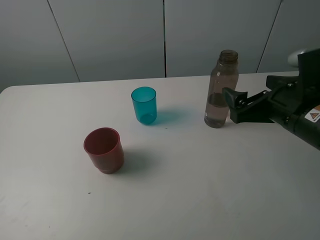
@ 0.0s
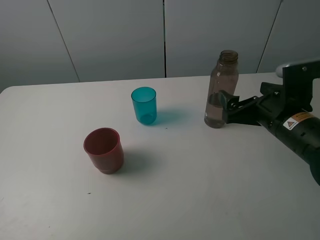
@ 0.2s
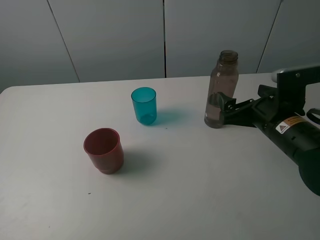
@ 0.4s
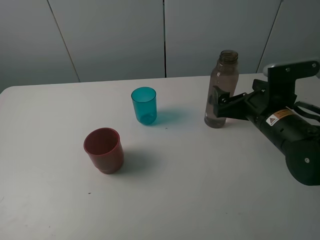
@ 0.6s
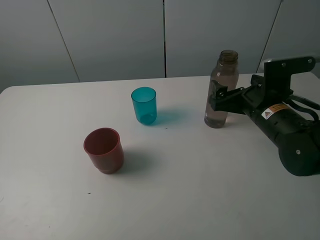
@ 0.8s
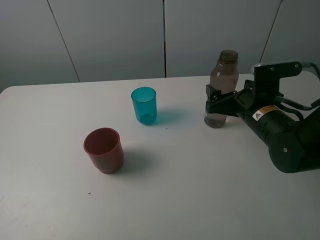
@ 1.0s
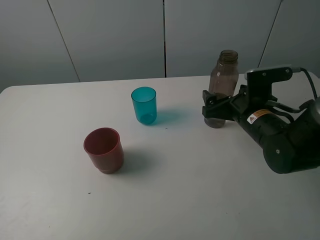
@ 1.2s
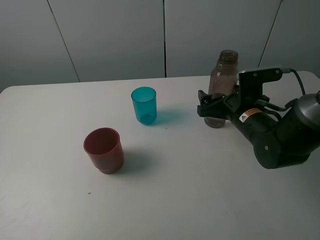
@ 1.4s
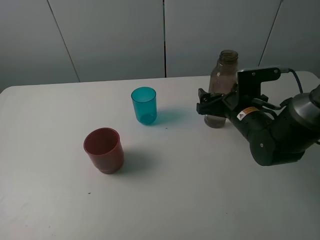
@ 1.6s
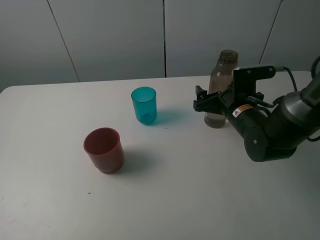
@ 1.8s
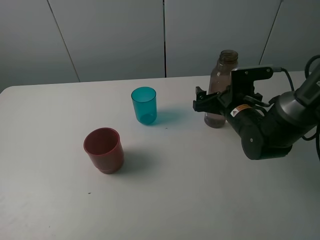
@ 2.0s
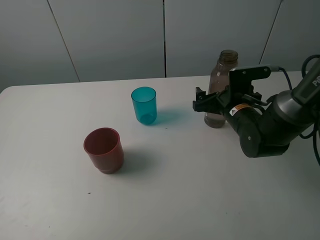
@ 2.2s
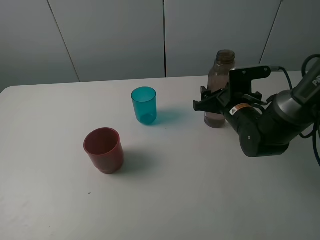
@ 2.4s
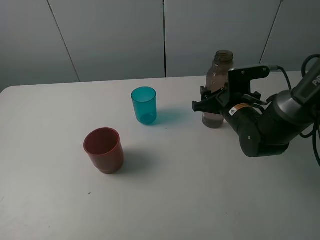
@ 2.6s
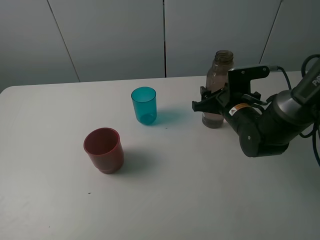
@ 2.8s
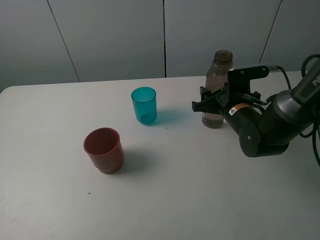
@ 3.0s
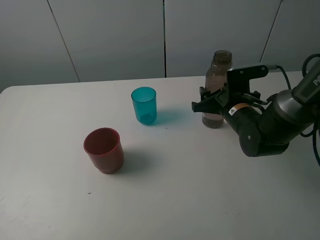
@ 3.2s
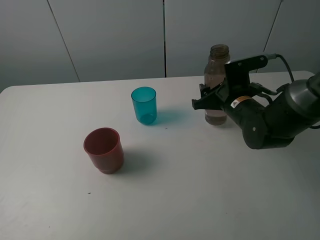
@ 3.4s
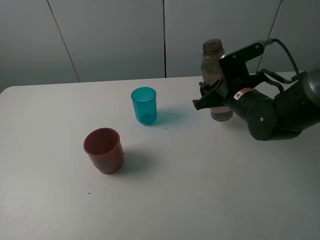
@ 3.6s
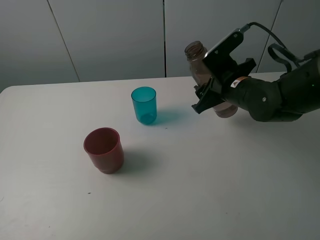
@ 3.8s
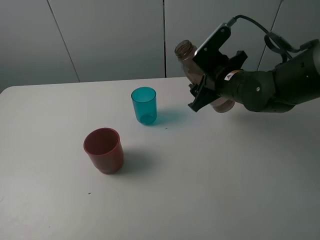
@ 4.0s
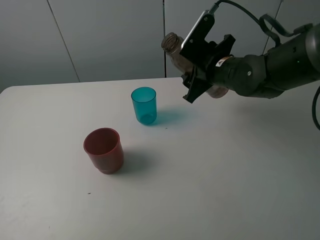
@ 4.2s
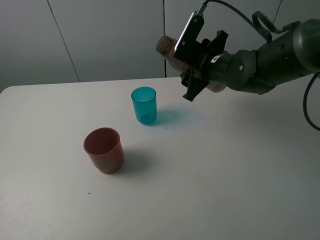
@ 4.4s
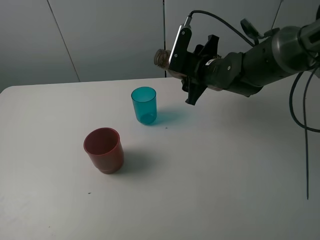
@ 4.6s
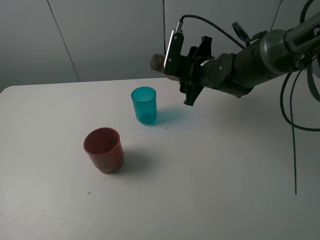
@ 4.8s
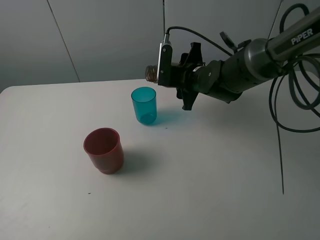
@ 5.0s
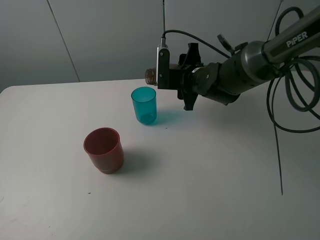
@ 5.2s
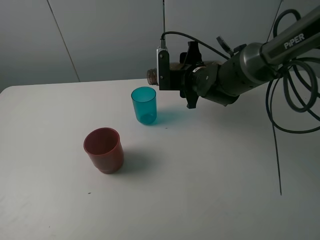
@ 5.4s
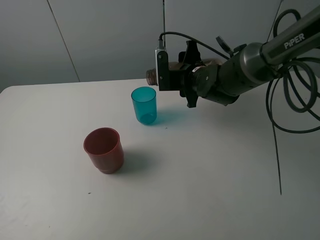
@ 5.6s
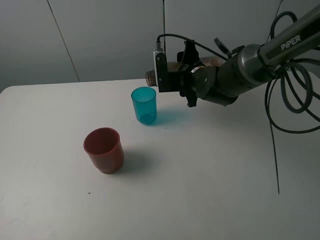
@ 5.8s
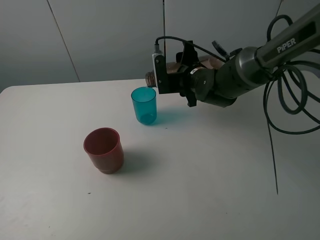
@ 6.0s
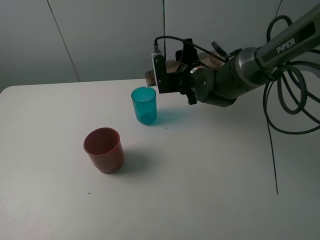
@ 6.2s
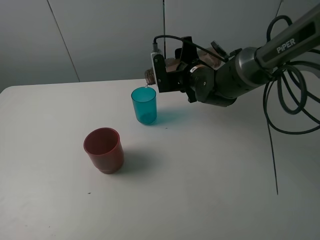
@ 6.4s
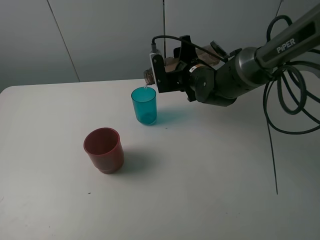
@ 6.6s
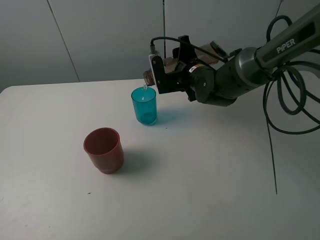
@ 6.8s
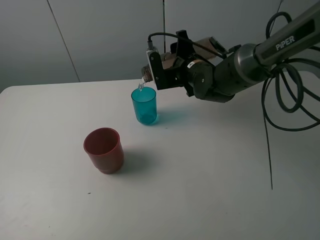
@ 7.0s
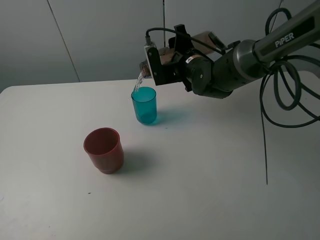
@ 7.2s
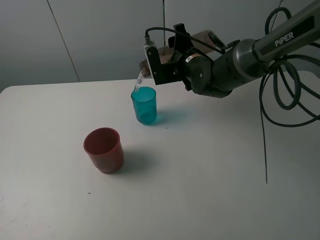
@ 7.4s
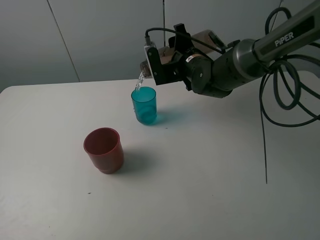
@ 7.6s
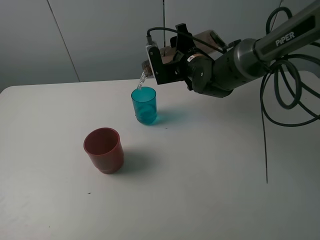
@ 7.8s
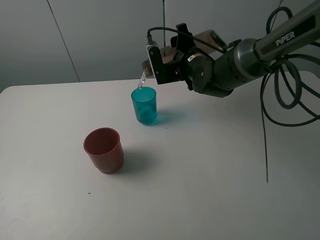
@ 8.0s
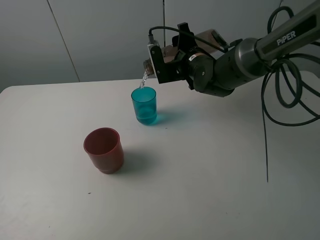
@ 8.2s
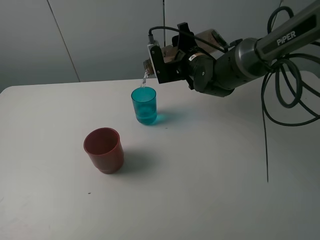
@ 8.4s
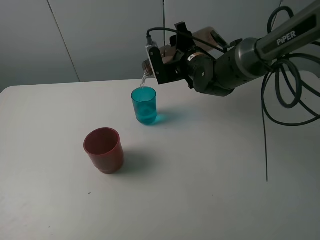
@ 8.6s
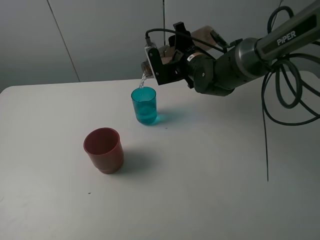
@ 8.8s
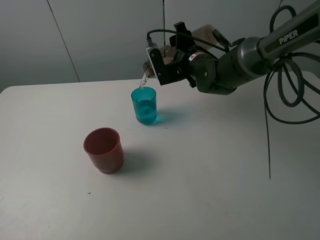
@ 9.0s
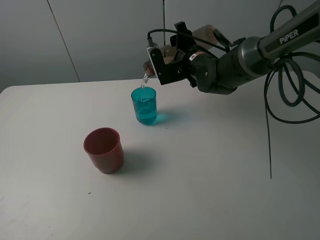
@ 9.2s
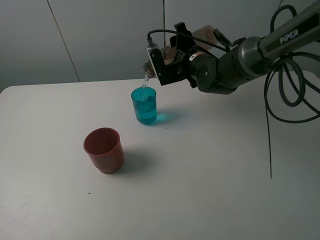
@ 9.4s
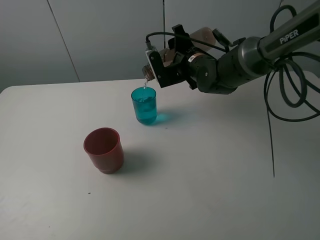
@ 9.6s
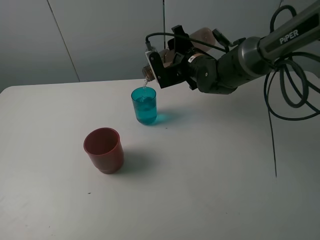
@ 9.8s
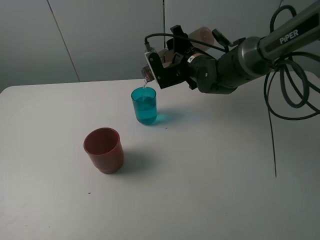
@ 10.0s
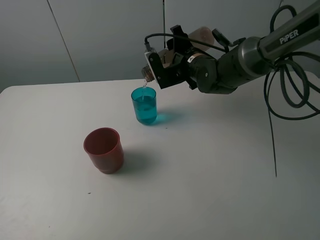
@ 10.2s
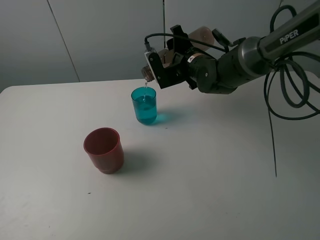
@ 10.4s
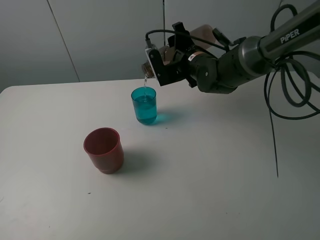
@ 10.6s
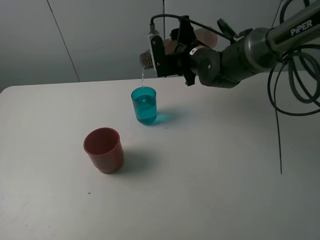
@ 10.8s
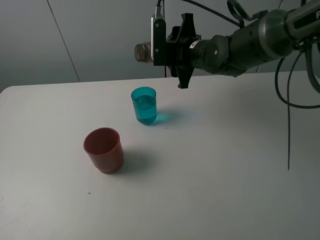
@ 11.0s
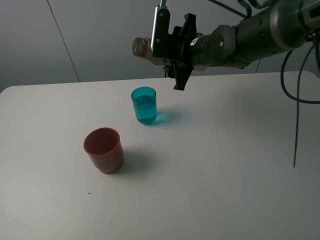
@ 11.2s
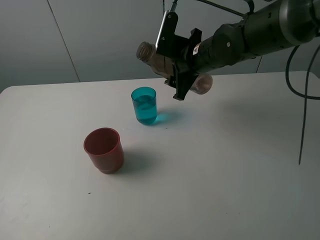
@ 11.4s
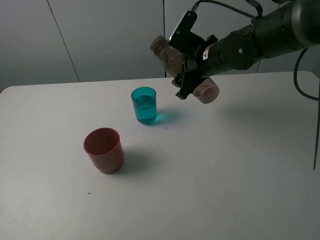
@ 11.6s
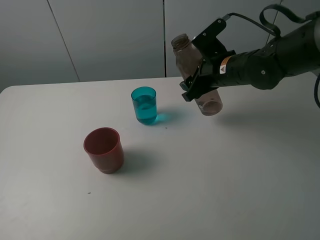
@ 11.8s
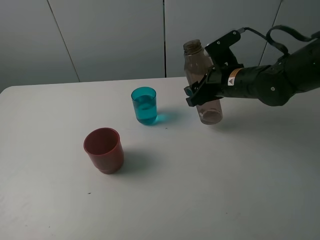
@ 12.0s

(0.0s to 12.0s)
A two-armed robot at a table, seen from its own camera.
Task of the whole recording: pick up the bottle and pour water into the cup, then pick up the cup containing water and pour it into another cup.
Step, 0.0s - 2.8s: Grasp the brown bottle with the right gripper.
Step, 3.0s - 10.8s: Pour water from brown bottle to blue cup with the right gripper.
0.0s - 1.6s: The right gripper moves forward and downward, about 10 cm.
1.6s - 3.0s: The right gripper closes its fingers.
3.0s - 4.4s: The right gripper shifts some 10 cm upward.
4.4s - 6.0s: The right gripper moves some 5 cm.
6.0s - 7.6s: There are only small adjustments of the grippers.
7.6s - 9.0s: The two grippers keep their place.
9.0s - 10.4s: Both grippers stay about where they are.
10.4s - 12.0s: The right gripper heads to the right and backward, covering about 10 cm.

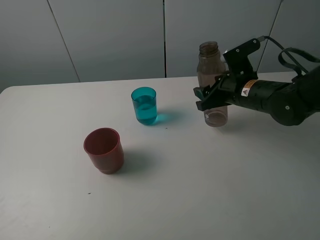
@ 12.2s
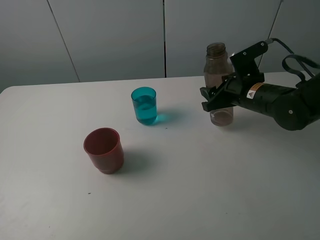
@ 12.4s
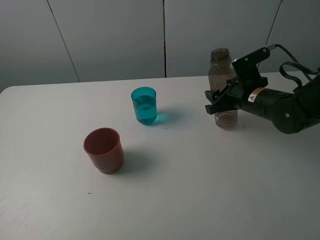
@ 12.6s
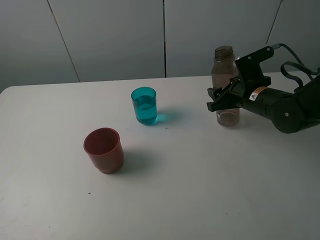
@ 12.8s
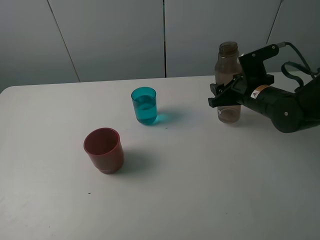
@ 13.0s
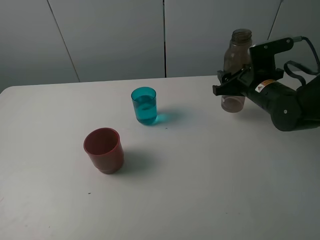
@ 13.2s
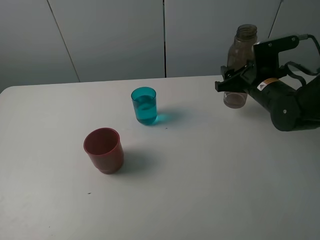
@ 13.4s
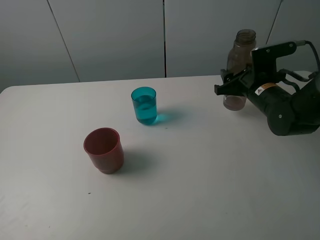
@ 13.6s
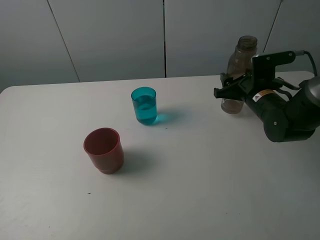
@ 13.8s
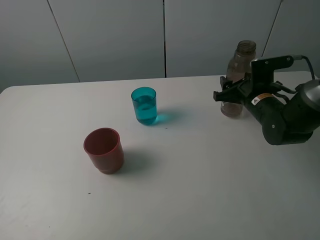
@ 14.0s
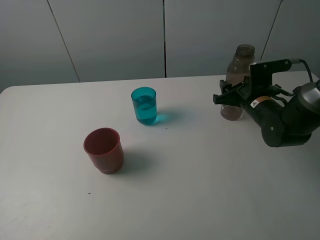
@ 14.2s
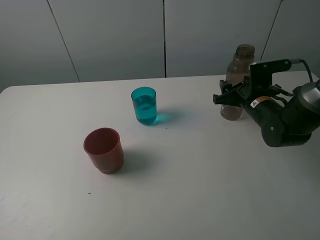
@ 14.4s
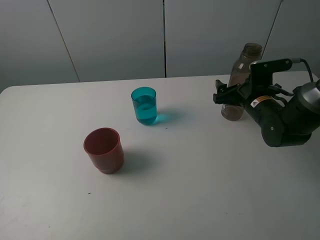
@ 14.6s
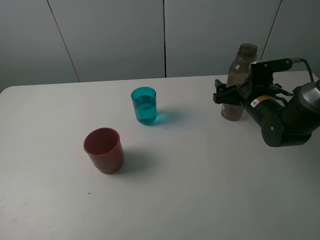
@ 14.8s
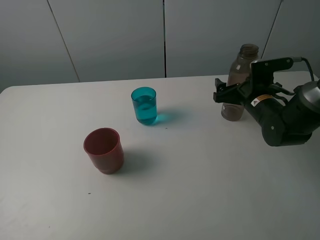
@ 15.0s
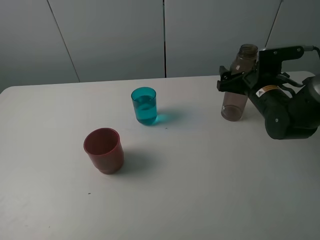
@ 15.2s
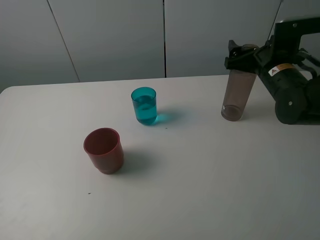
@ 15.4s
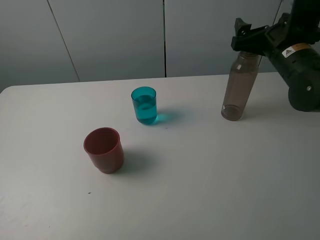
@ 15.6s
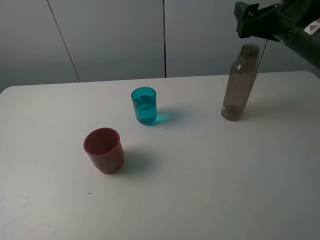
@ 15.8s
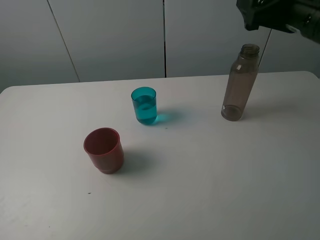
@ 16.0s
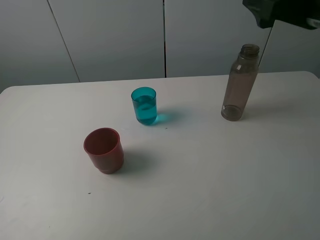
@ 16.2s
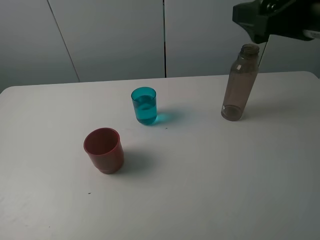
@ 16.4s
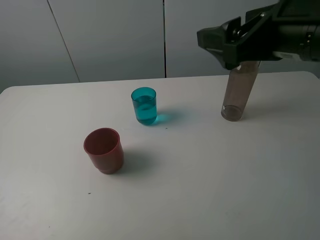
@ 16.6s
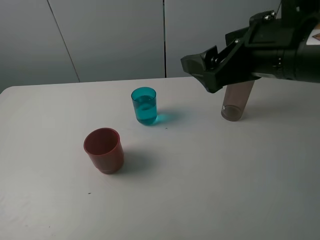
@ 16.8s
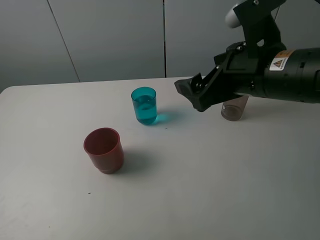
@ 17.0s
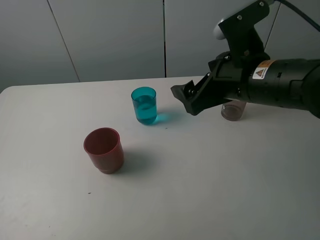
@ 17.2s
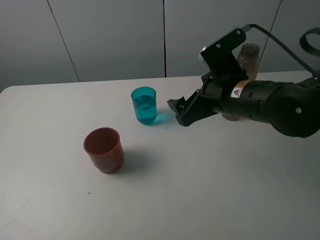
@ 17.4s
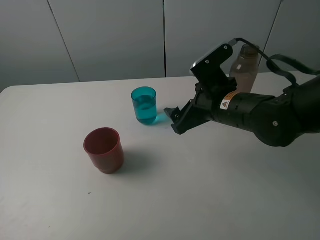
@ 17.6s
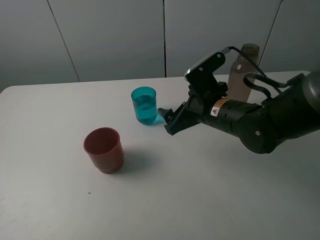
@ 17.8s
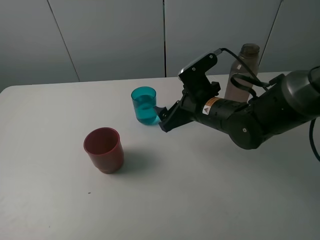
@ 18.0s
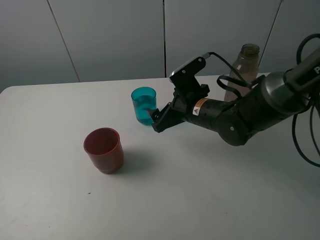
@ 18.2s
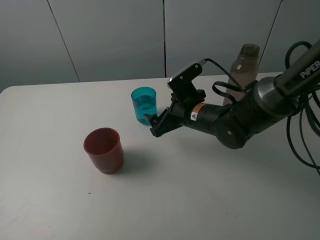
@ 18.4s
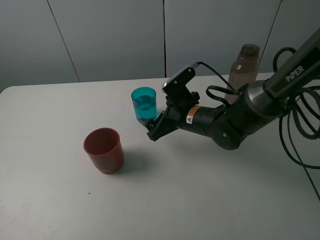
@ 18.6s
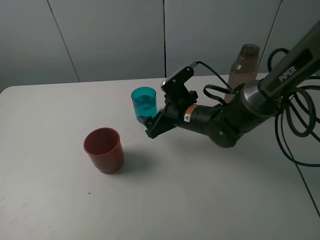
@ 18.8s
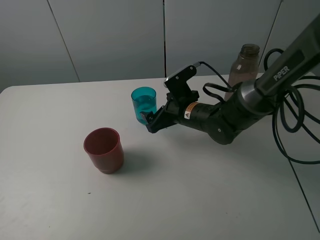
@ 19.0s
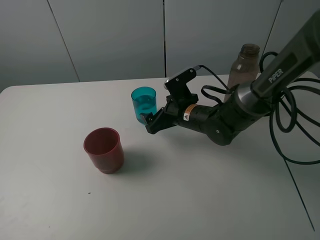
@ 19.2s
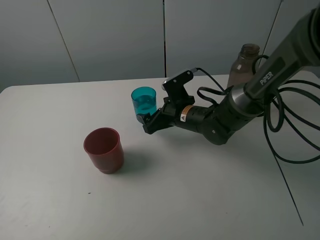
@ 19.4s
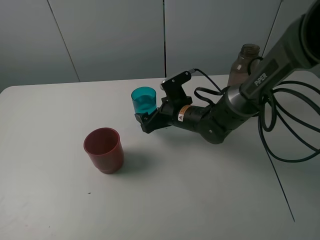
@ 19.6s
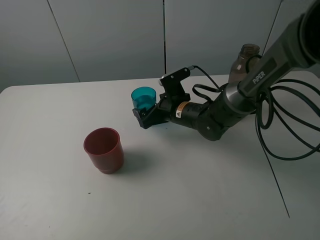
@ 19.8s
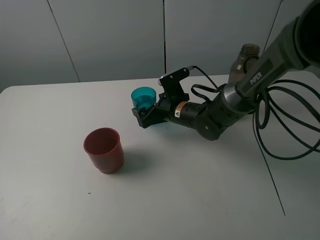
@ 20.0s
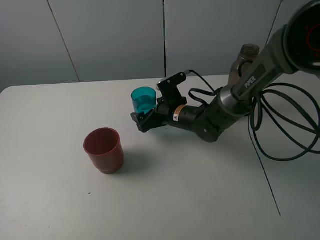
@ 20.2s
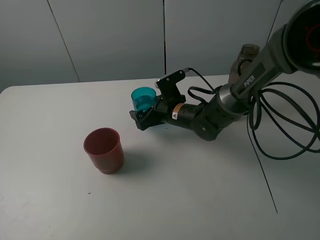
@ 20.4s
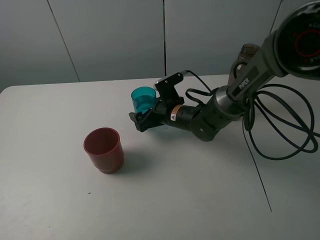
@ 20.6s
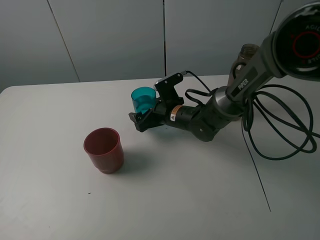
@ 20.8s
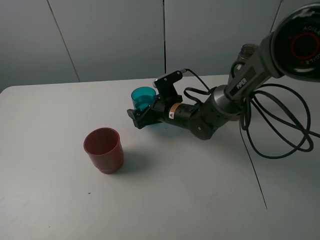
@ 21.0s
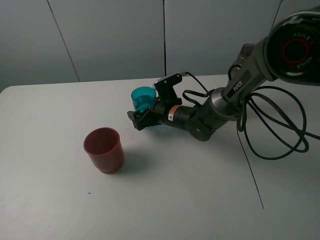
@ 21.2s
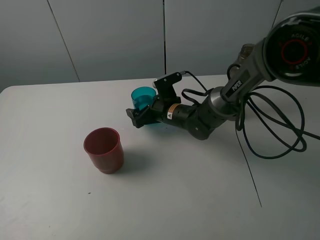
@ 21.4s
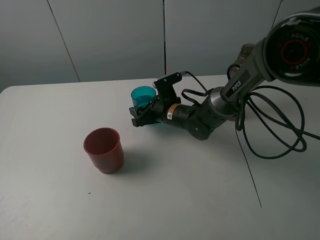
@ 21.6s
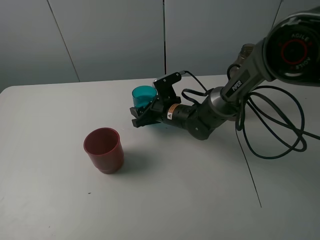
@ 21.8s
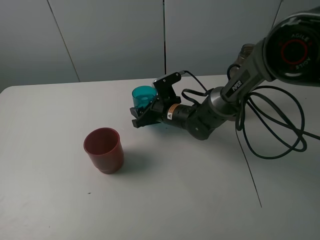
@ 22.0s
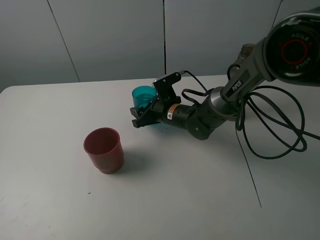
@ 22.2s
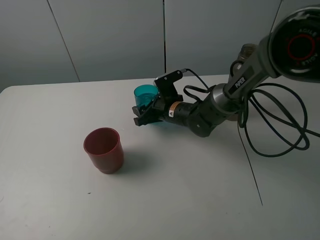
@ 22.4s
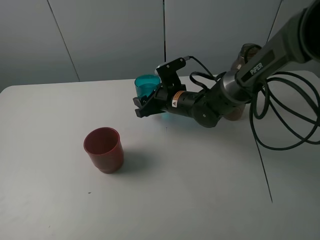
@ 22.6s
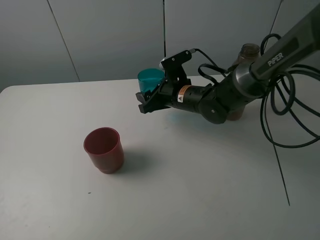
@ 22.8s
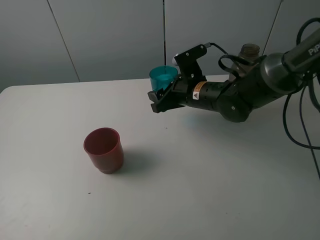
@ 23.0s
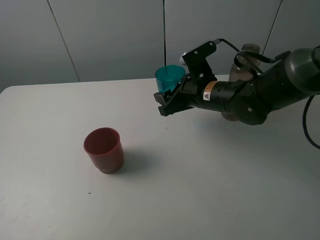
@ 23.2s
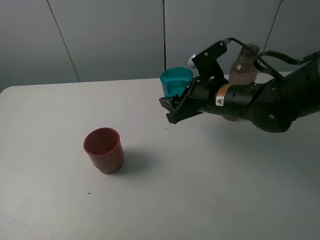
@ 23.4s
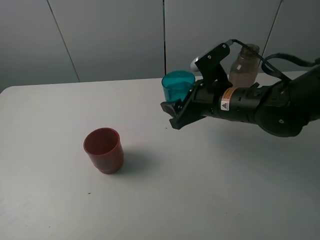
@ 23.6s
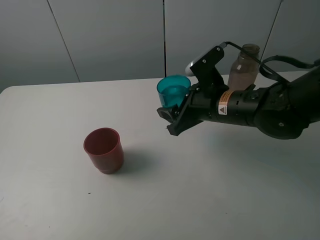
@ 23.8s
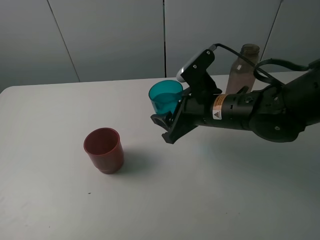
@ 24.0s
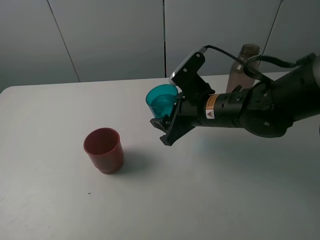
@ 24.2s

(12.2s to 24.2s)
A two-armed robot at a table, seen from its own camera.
Task of the whole recording: pick up the bottle and pour water into the cup, then pick up the cup containing water and pour it into another cup.
Step, 12.2s - 14.8s: Place the brown bottle with the right gripper.
Step, 15.0s - 21.8s: Grasp the blue cup with the right gripper.
12.2s - 13.8s: The right gripper shifts by some 5 cm.
13.8s - 15.2s: The right gripper opens up.
15.2s - 16.6s: The right gripper heads upward and backward, covering about 25 cm.
16.6s - 18.2s: The right gripper heads downward, forward and to the left, covering some 25 cm.
18.2s - 19.8s: The right gripper moves approximately 5 cm.
19.8s - 21.2s: The grippers move only a little.
21.2s - 22.6s: The right gripper closes its fingers.
22.6s - 24.2s: The right gripper travels backward and upward by roughly 10 cm.
